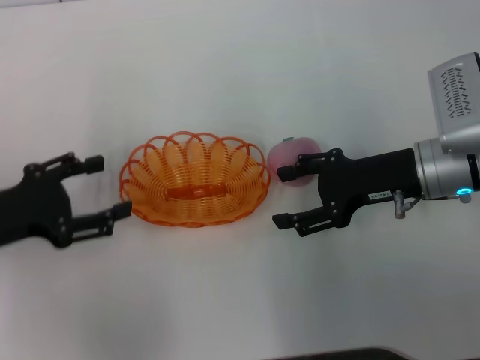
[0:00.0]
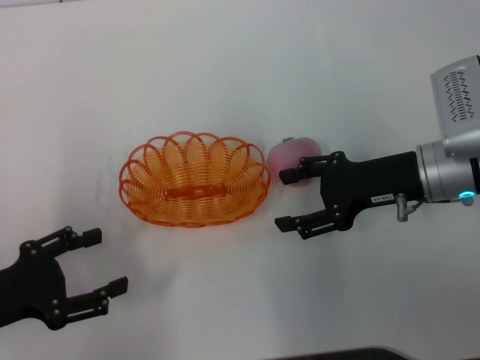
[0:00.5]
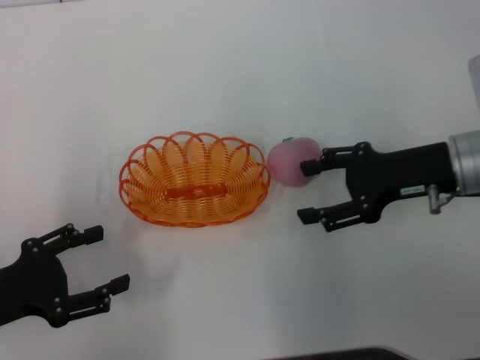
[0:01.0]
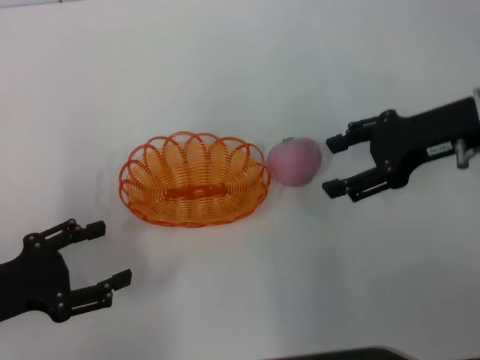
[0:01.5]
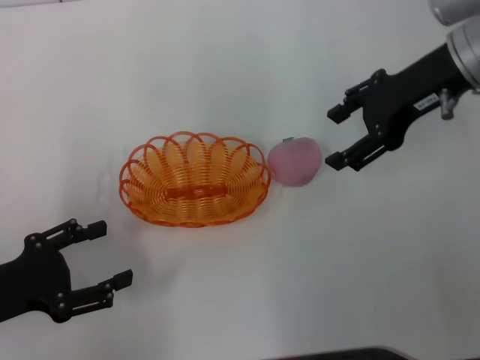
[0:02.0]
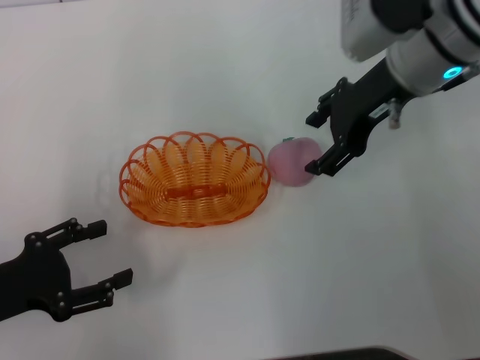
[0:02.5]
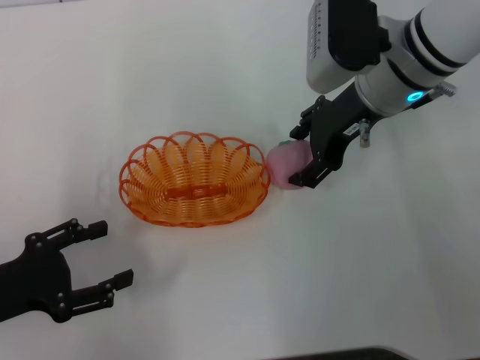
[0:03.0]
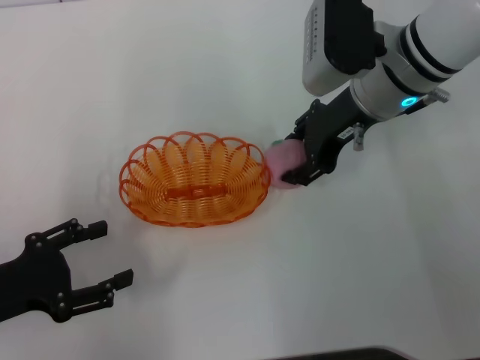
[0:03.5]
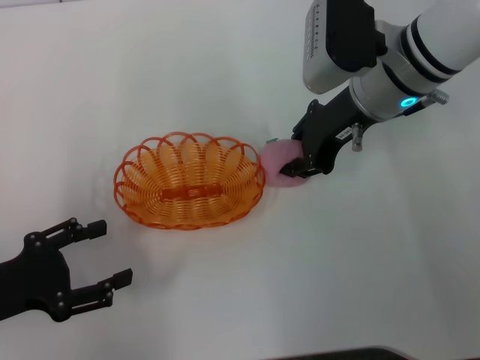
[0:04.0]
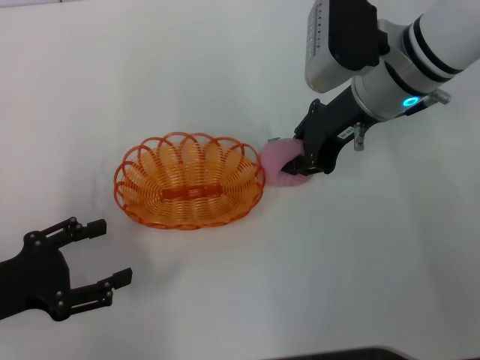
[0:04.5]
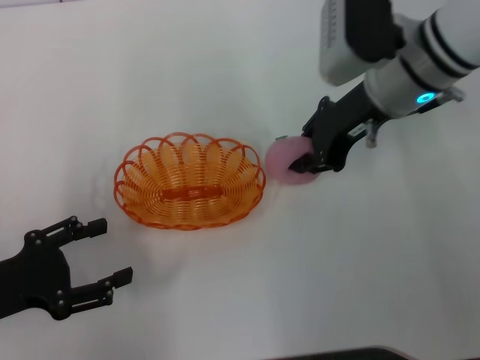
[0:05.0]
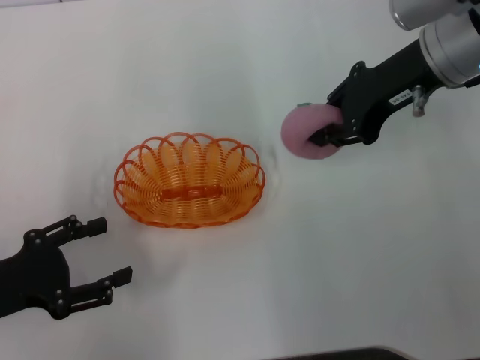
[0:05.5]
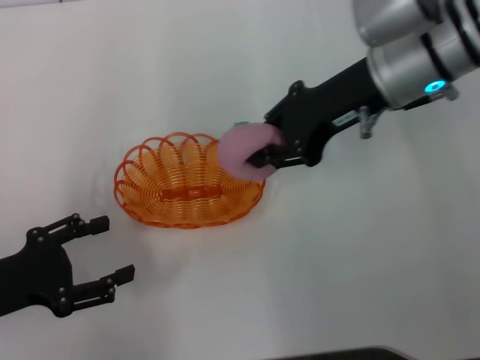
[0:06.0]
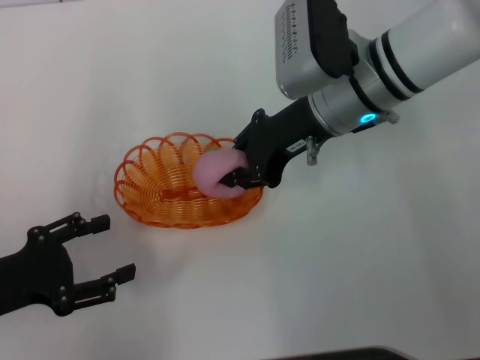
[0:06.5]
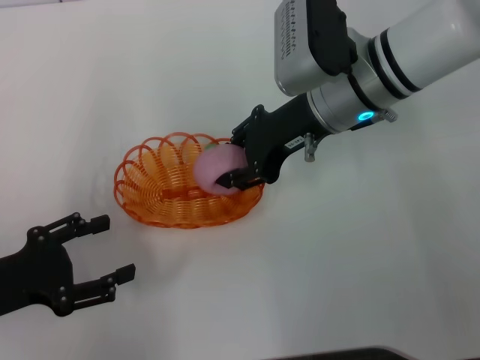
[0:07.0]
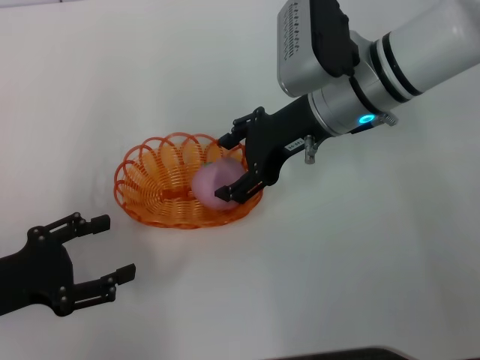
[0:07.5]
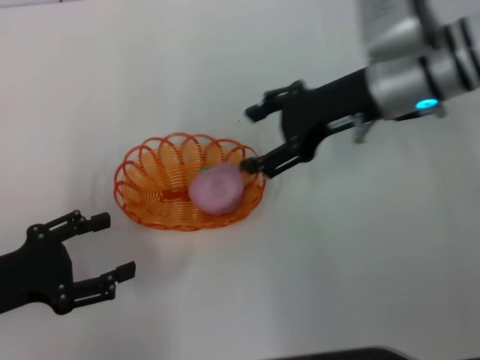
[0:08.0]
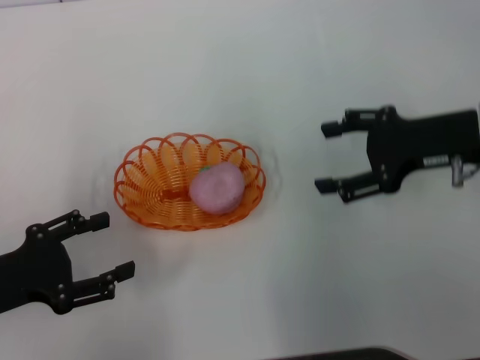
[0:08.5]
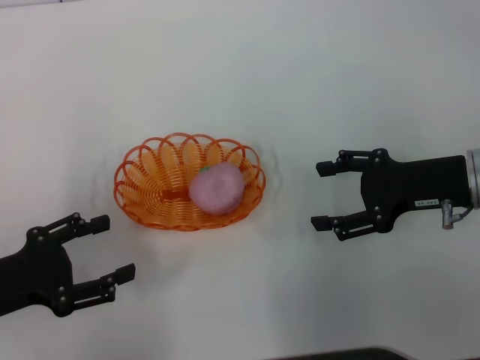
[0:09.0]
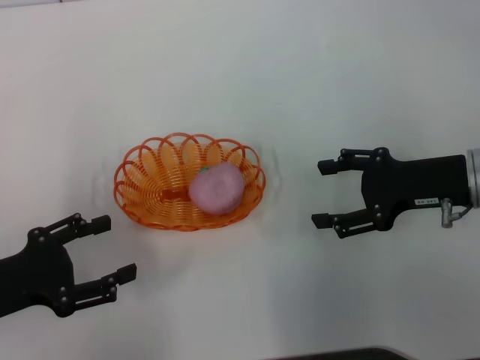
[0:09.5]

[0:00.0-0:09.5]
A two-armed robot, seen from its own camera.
Step, 0:00.0 to 0:05.0: Pick up the peach with the right gripper.
Step, 0:05.5 to 0:07.5: Place the peach into the basket with the right gripper.
0:00.0 to 0:02.0: The left gripper travels backward by some 5 cm; the right gripper shifts about 15 cm upward and forward.
0:02.0 to 0:04.0: The right gripper moves to the left and downward, some 10 cm, and closes.
0:04.0 to 0:05.5: The right gripper heads upward, covering roughly 5 cm.
0:05.5 to 0:07.5: The right gripper shifts approximately 10 cm to the left and downward, and opens.
0:07.5 to 0:09.5: The right gripper moves to the right and backward, some 15 cm.

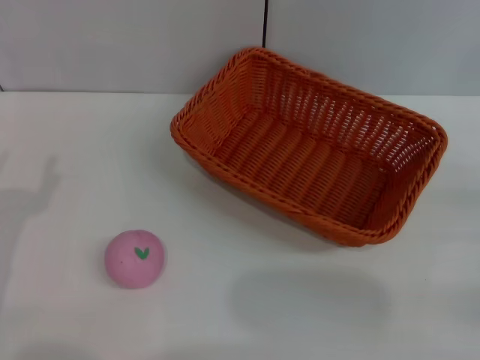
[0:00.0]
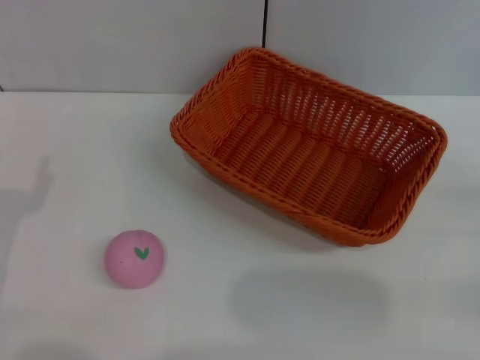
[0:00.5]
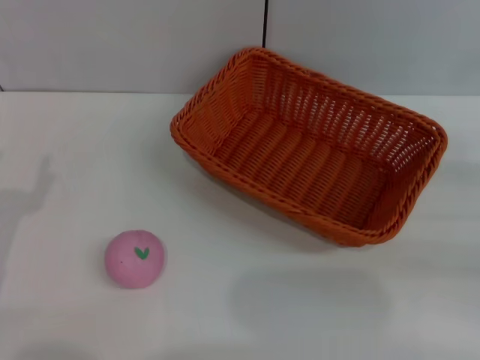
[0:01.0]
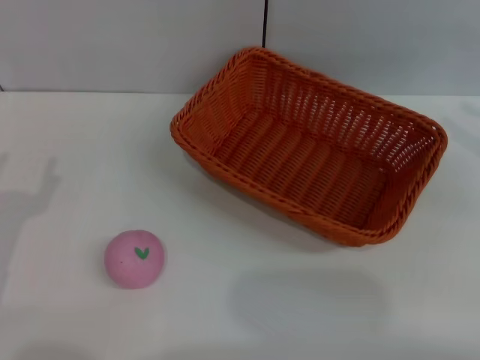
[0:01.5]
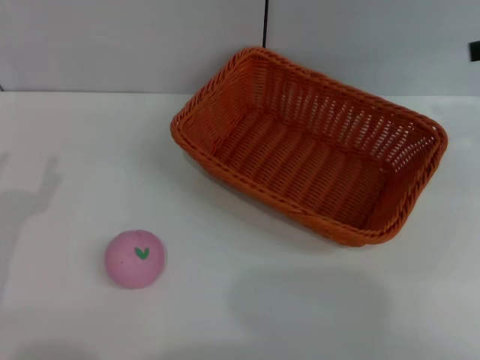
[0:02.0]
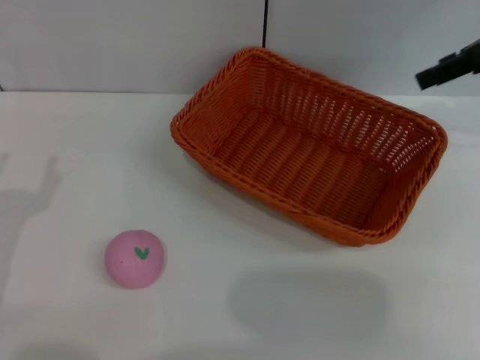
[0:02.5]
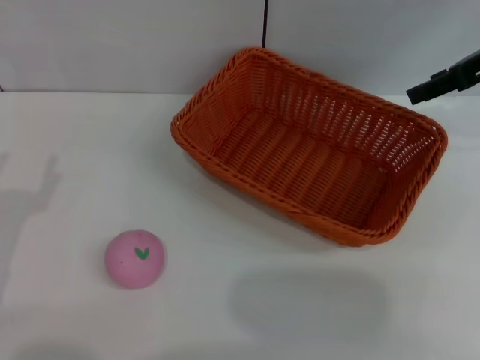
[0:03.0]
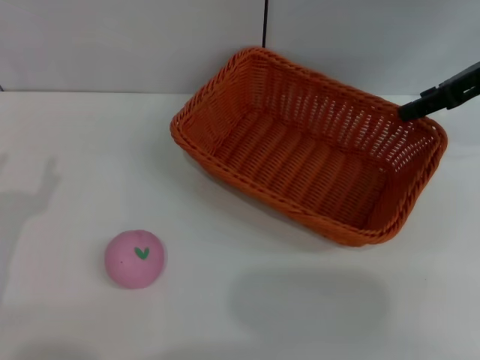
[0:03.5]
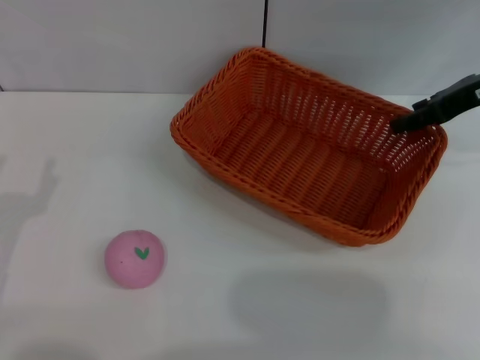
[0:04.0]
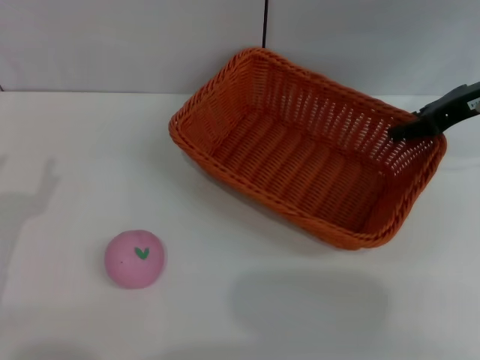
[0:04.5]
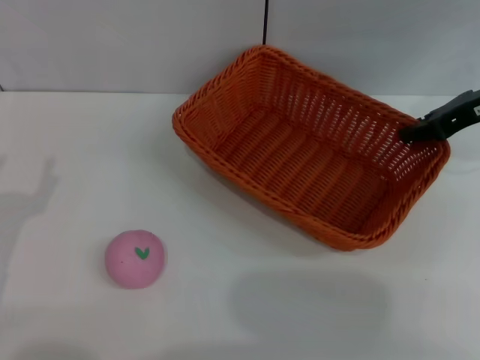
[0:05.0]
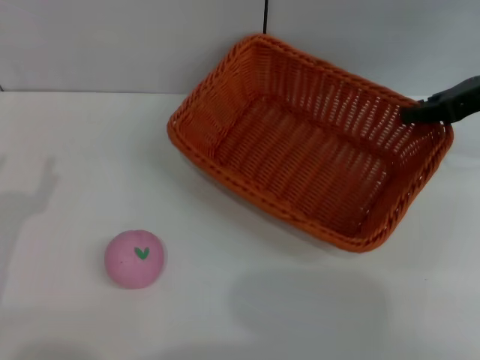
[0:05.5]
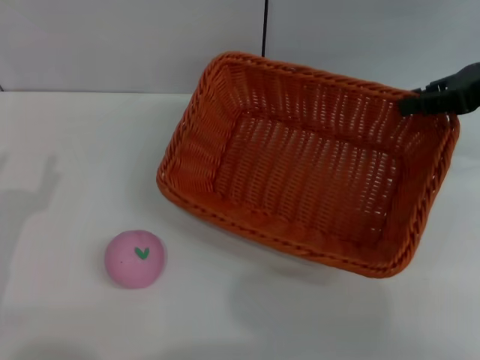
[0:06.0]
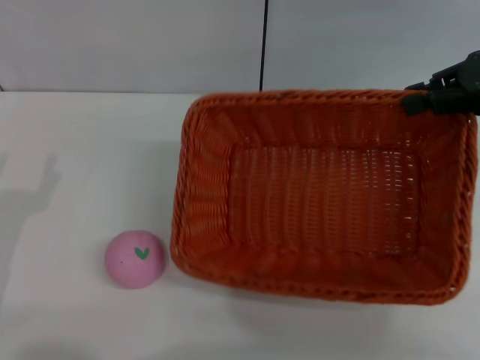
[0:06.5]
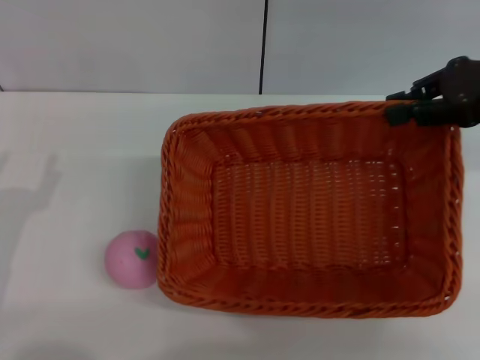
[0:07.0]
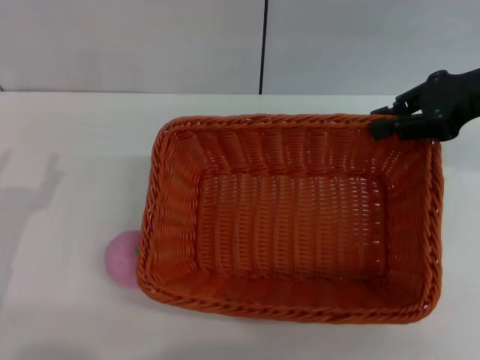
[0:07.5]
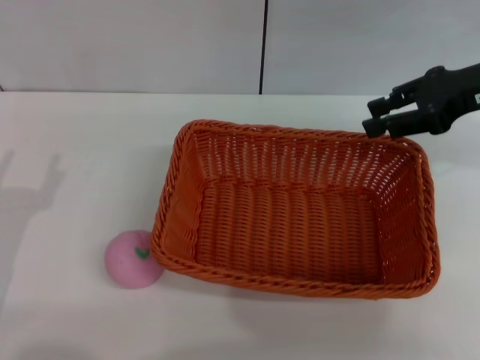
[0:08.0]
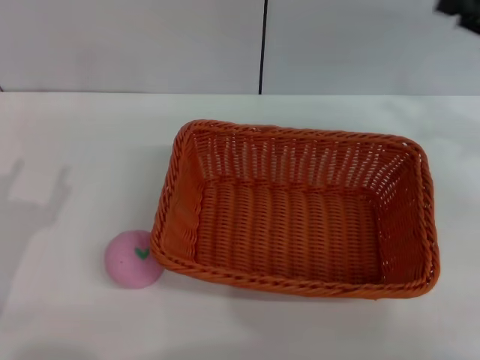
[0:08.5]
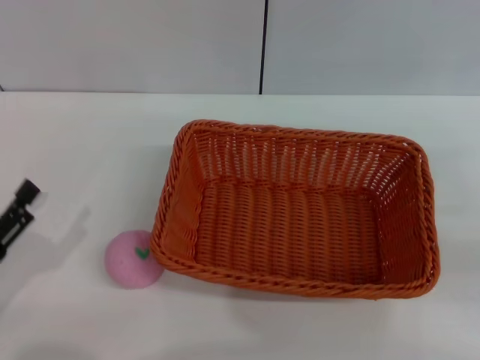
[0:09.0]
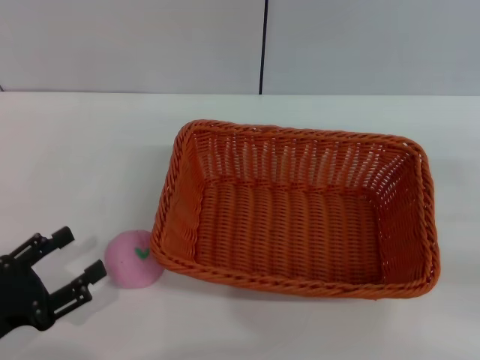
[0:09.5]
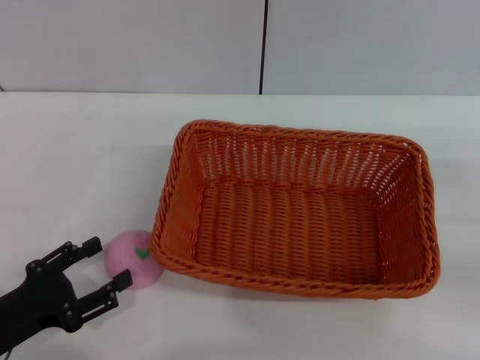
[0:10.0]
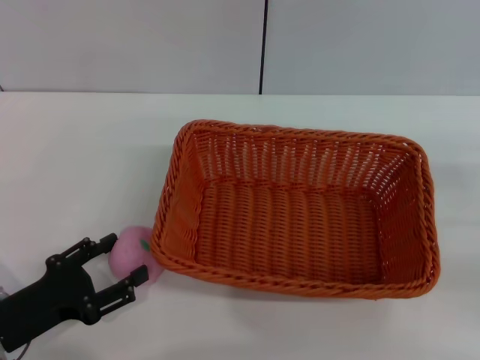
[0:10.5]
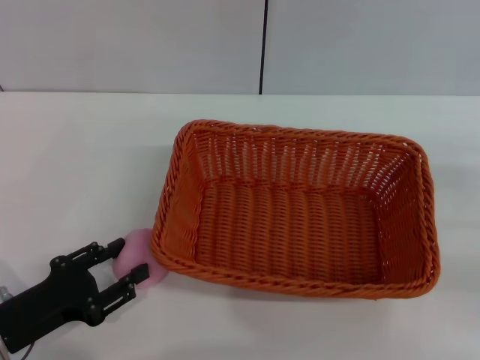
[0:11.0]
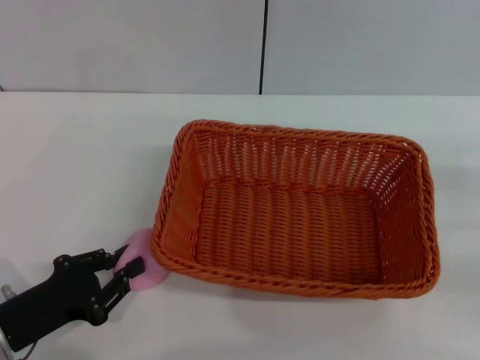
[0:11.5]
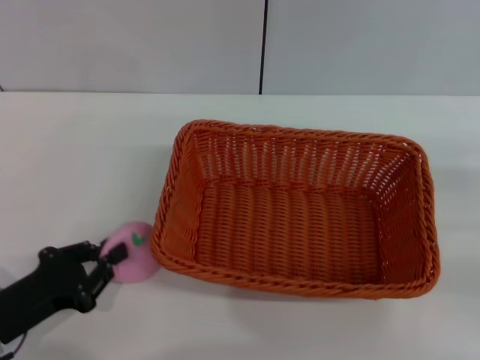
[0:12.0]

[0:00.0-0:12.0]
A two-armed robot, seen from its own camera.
Step, 0:00.0 to 0:06.0: Pick up the light basket with the right gripper.
Step, 0:06.5 to 0:08.0: Place the light basket in the center of view with the right gripper.
0:02.0 to 0:04.0: The right gripper heads downward and to the left, covering about 10 cm.
0:04.0 to 0:06.0: The right gripper closes up.
0:06.0 to 0:08.0: The right gripper opens.
0:08.0 to 0:10.0: The left gripper changes place by roughly 5 cm; the right gripper goes approximately 20 cm backward, to the right and downward.
0:10.0 to 0:12.0: The left gripper closes its fingers.

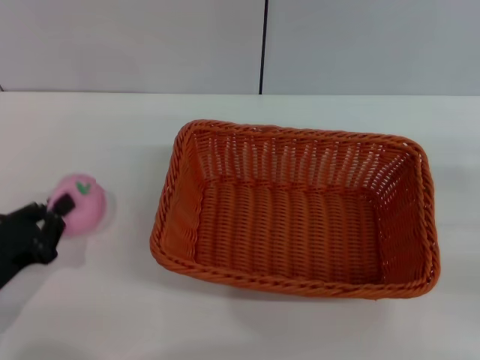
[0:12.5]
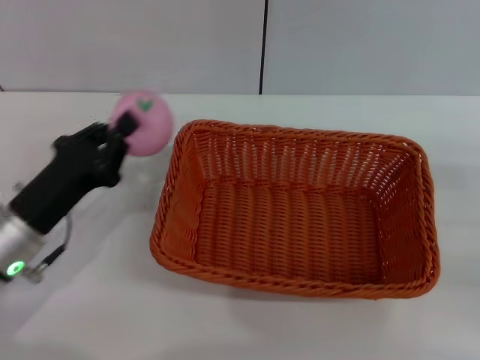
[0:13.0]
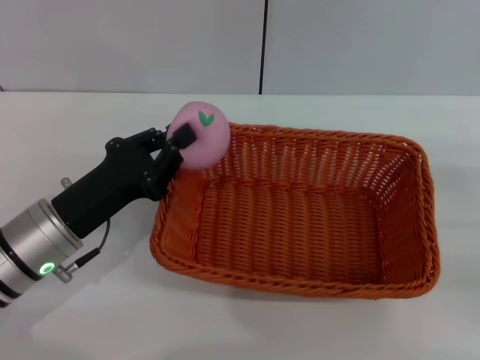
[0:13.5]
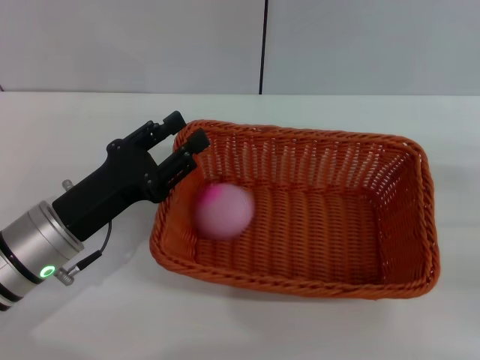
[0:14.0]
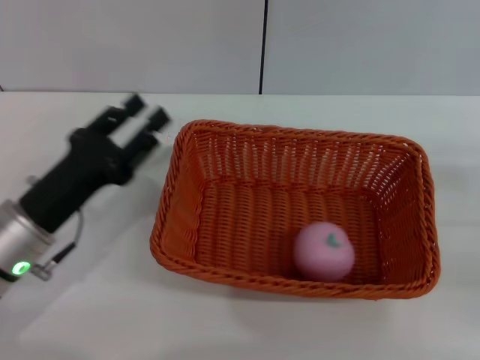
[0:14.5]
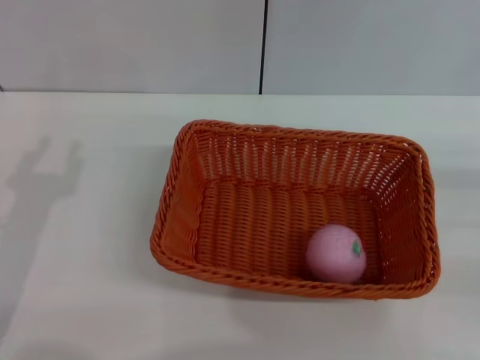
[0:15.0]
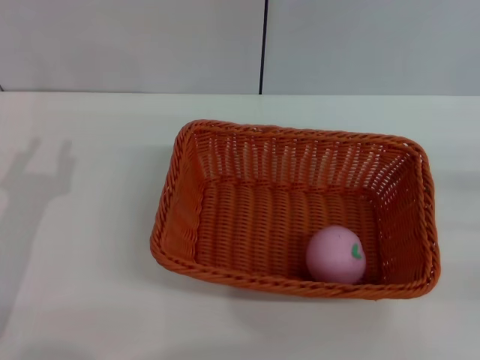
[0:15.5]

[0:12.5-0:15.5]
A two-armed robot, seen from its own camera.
Step, 0:13.5 to 0:14.0: Place the peach into the basket with the left gripper.
0:12.5 to 0:14.0: The left gripper travels to the right and forward by approximately 10 cm, and opens.
0:14.0 to 0:15.5: The left gripper goes about 5 cm to the left.
